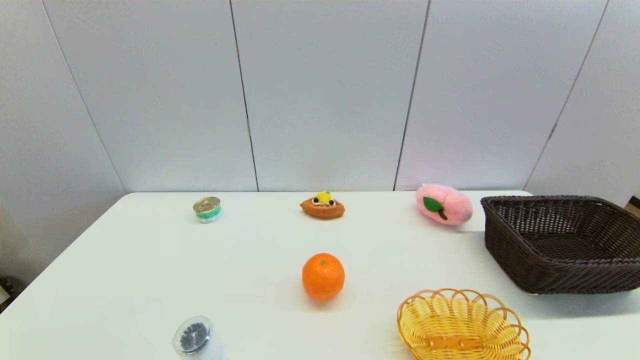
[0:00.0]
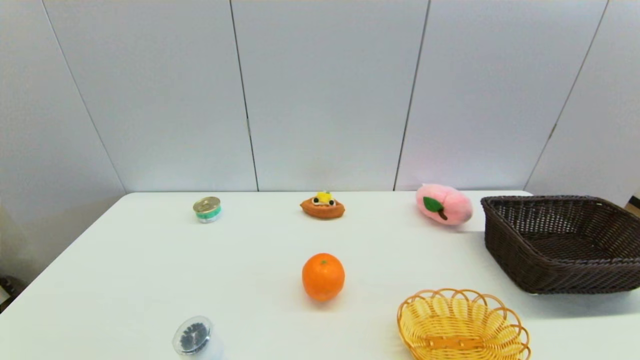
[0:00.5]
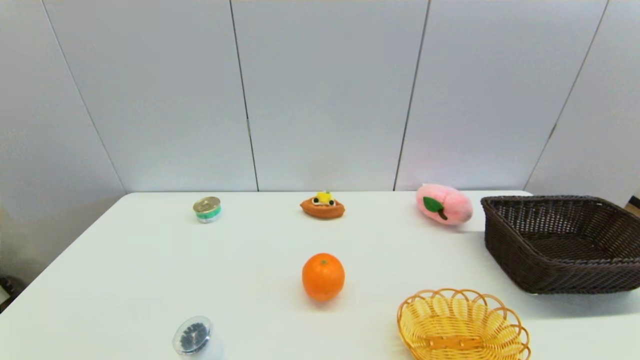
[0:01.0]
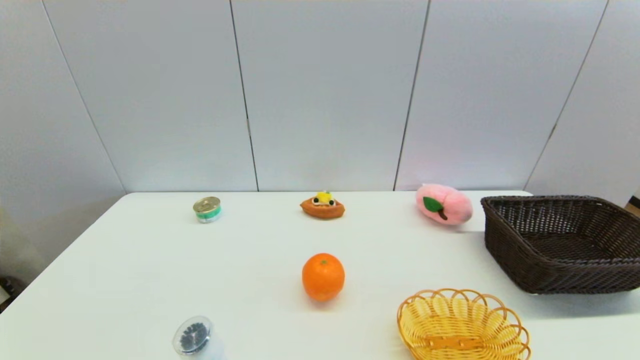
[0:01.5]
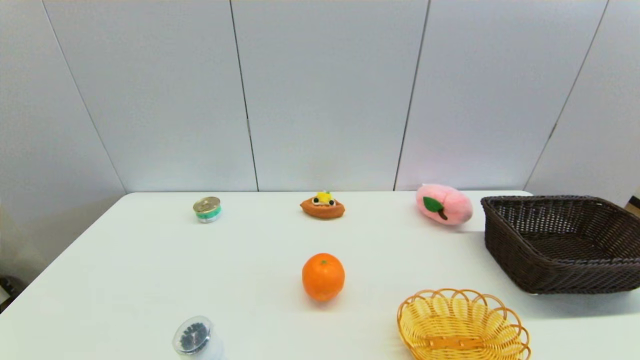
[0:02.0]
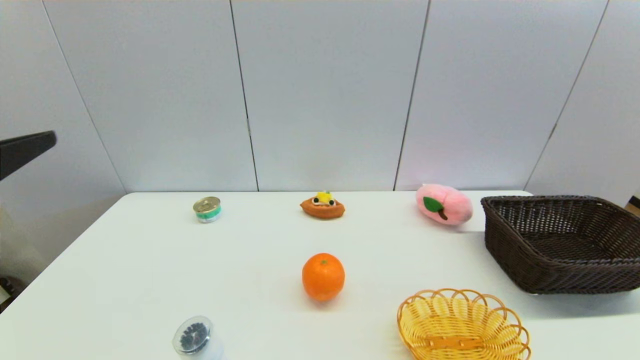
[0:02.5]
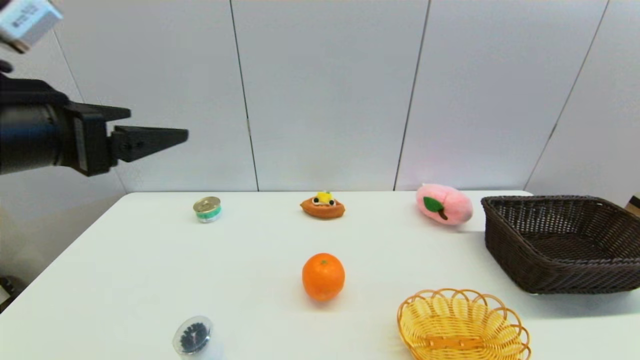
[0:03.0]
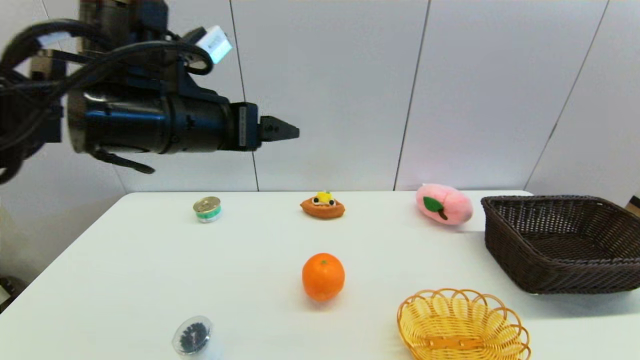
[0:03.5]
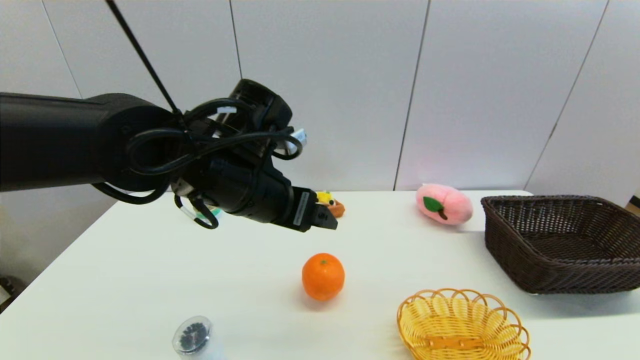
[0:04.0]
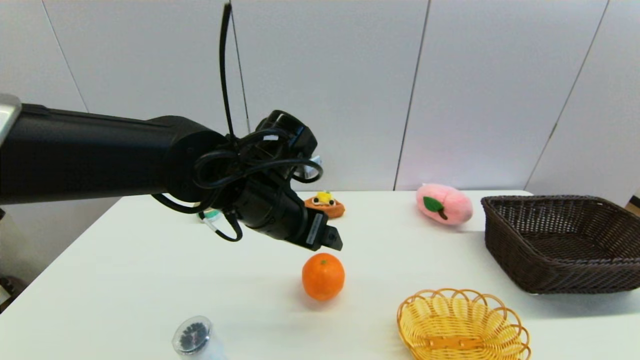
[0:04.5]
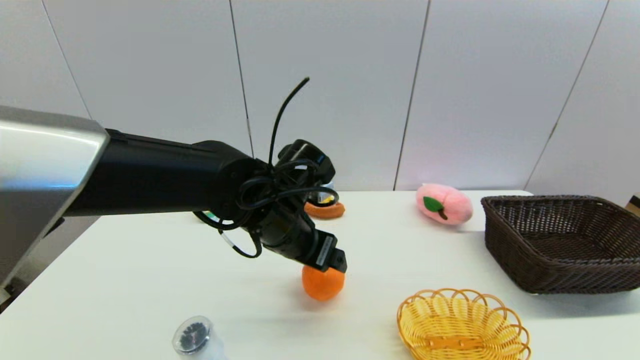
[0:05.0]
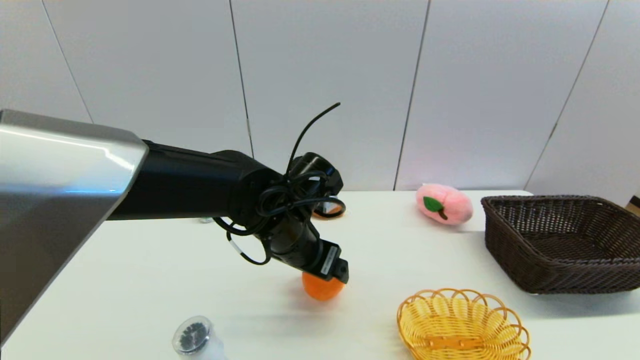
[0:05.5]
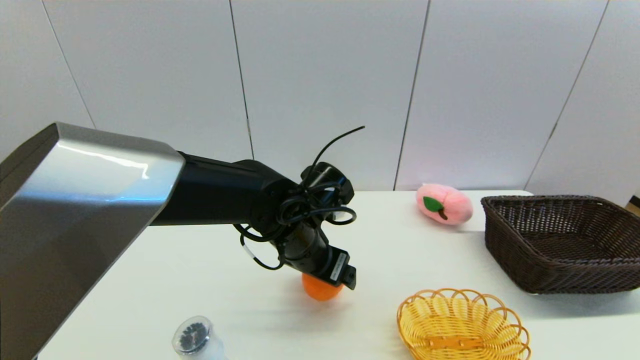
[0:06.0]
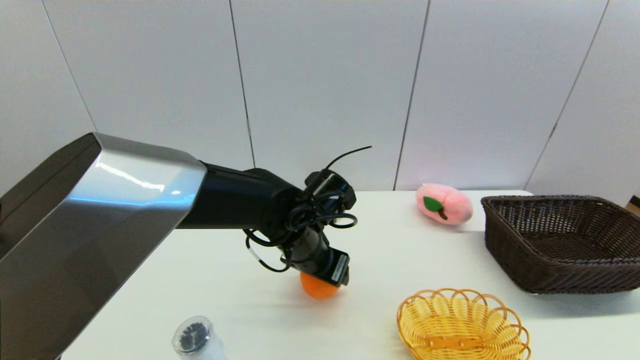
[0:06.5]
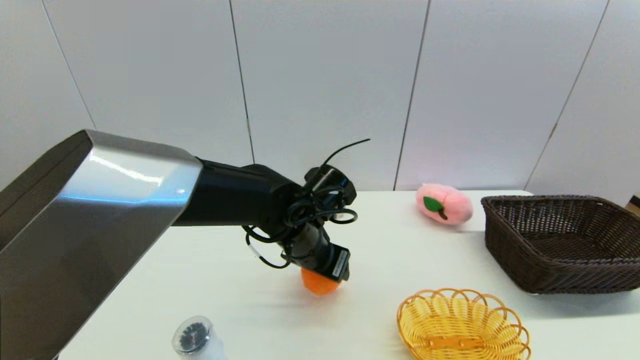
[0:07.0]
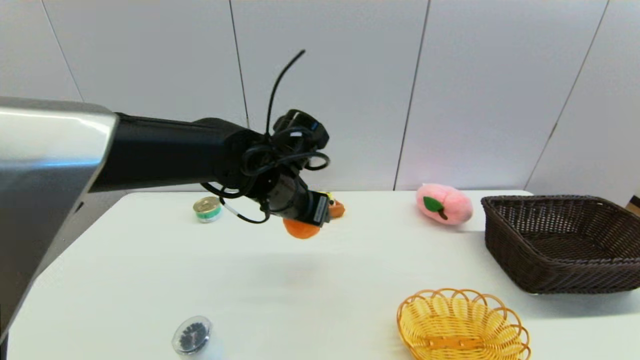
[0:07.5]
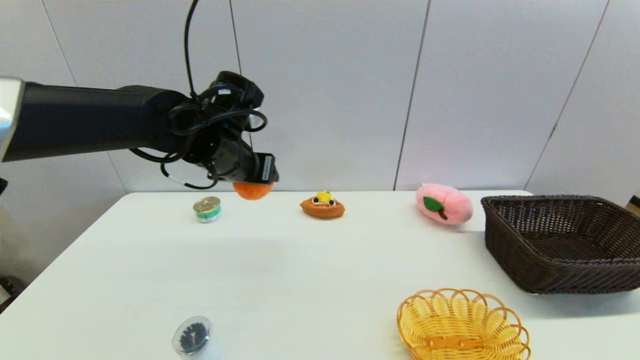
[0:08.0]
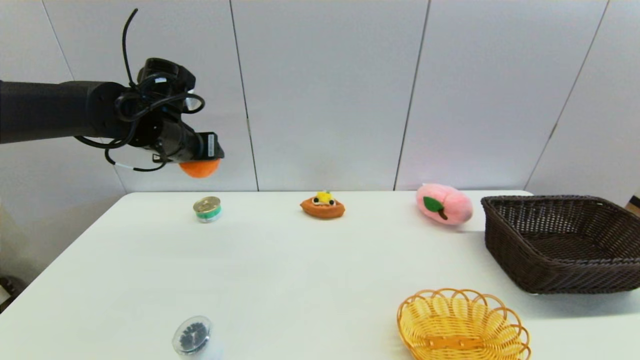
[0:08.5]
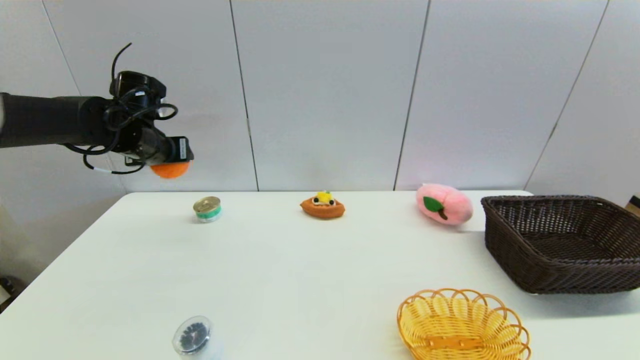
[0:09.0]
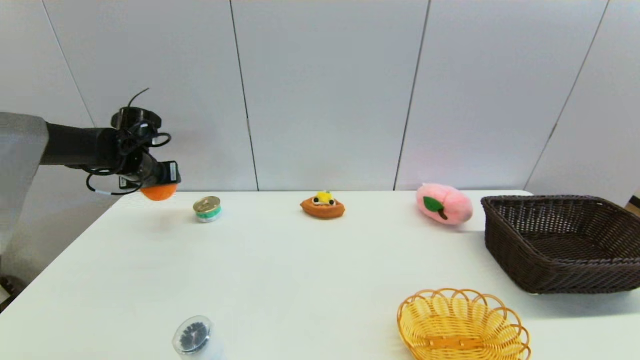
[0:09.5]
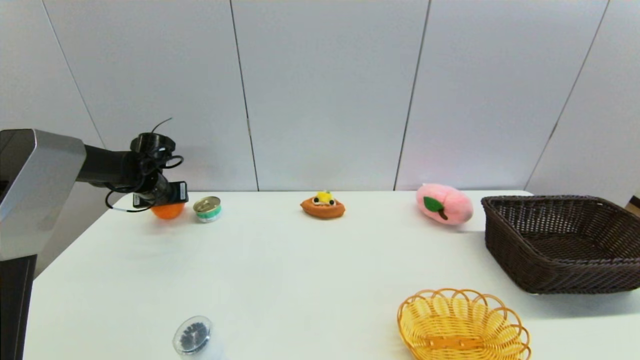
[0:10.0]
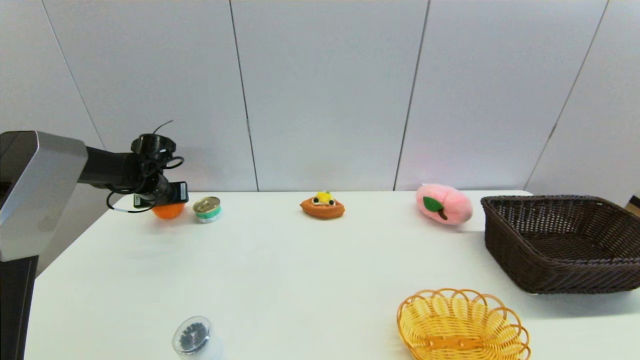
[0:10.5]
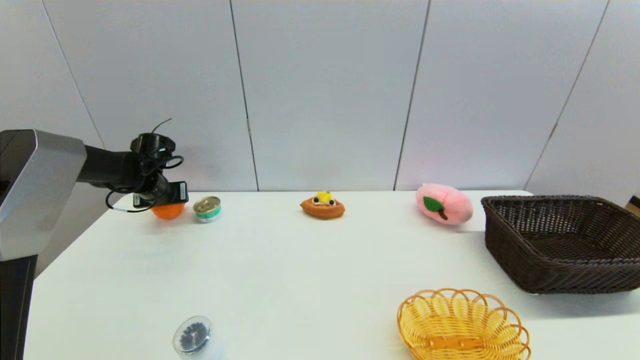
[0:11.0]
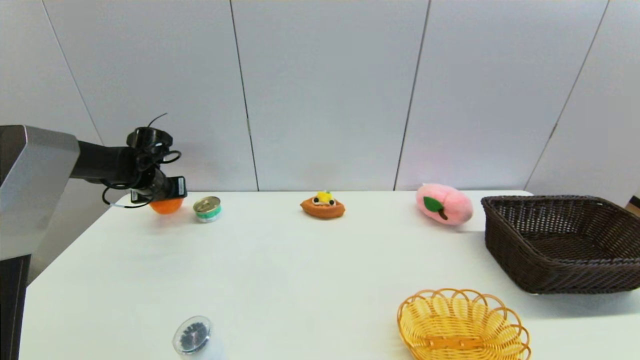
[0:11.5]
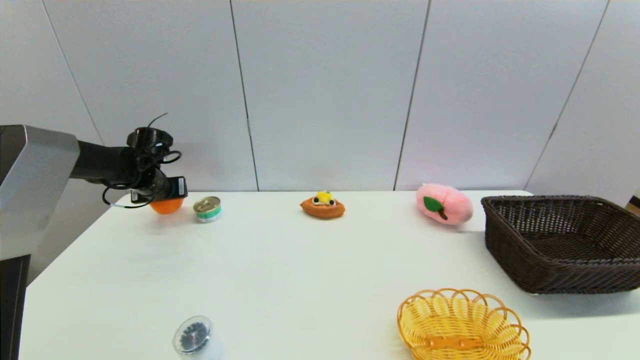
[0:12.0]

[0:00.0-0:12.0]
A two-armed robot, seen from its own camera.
Step, 0:02.5 to 0:06.5: Grasp the orange with left gripper.
0:02.0 to 0:04.0: The left gripper shifts about 35 cm forward and to the right.
0:04.0 to 0:06.0: The left gripper goes some 10 cm downward and to the right.
0:06.0 to 0:08.0: The left gripper moves to the left, upward and forward, roughly 15 cm, and closes up.
0:08.0 to 0:10.0: The left gripper goes roughly 25 cm to the left, downward and forward.
0:10.0 to 0:12.0: Both grippers stay put.

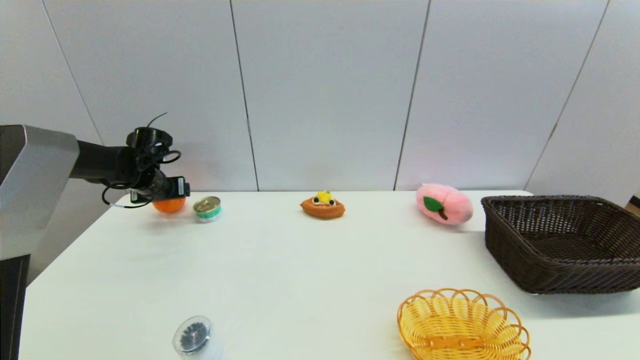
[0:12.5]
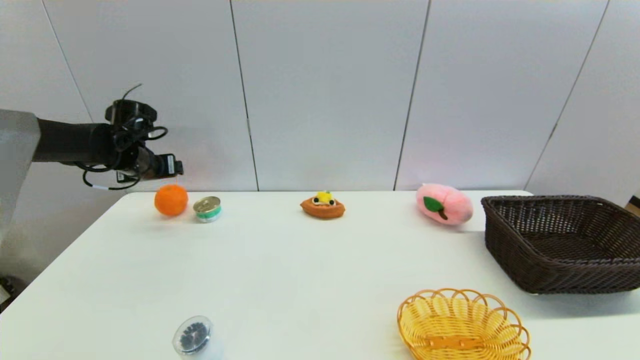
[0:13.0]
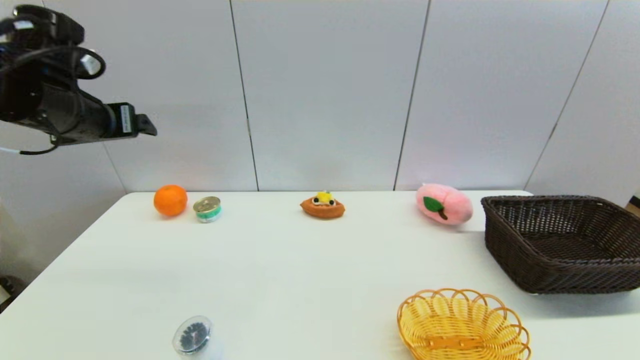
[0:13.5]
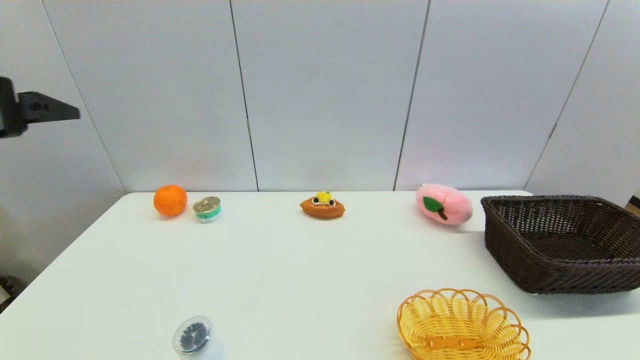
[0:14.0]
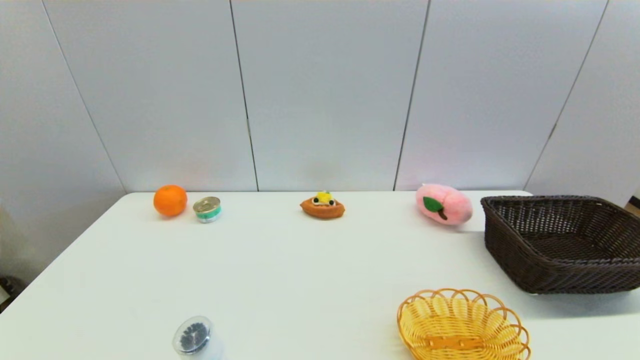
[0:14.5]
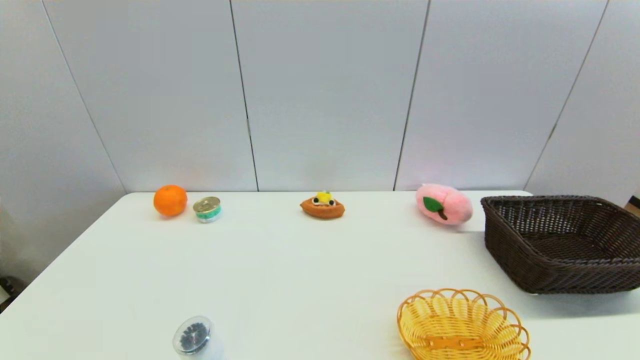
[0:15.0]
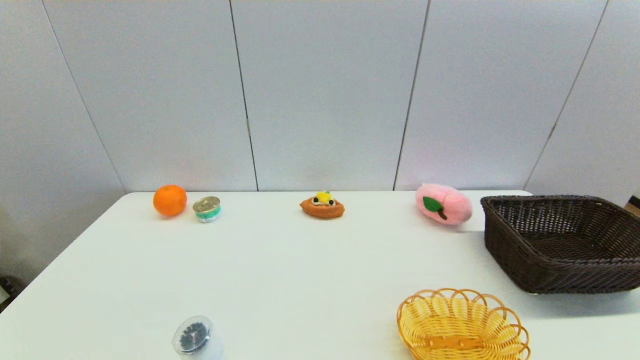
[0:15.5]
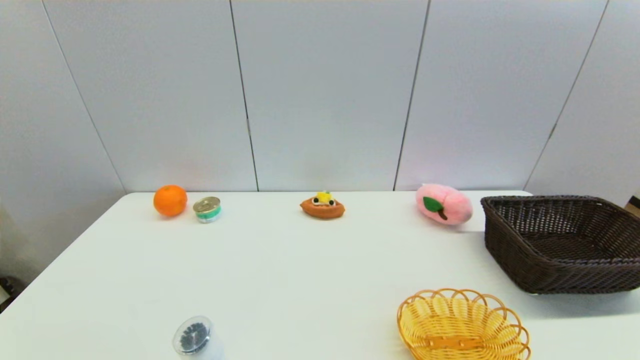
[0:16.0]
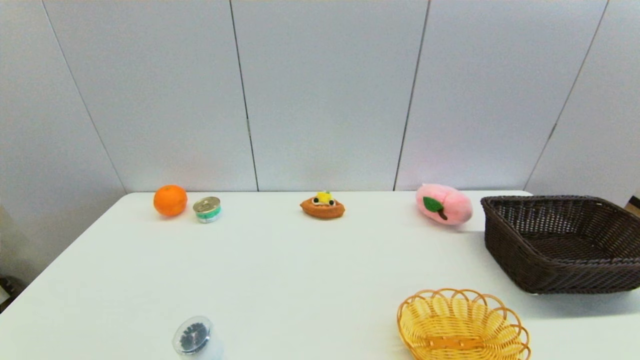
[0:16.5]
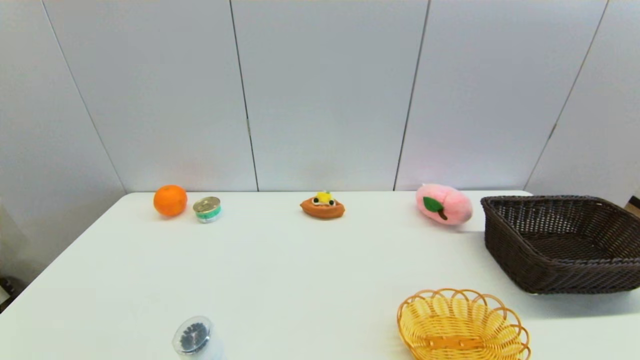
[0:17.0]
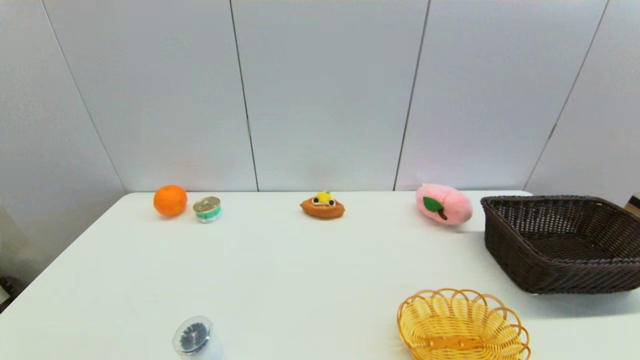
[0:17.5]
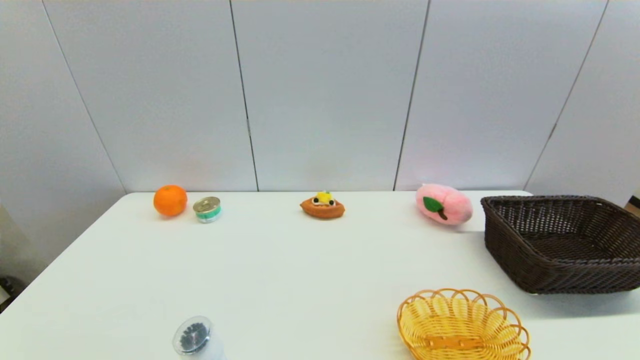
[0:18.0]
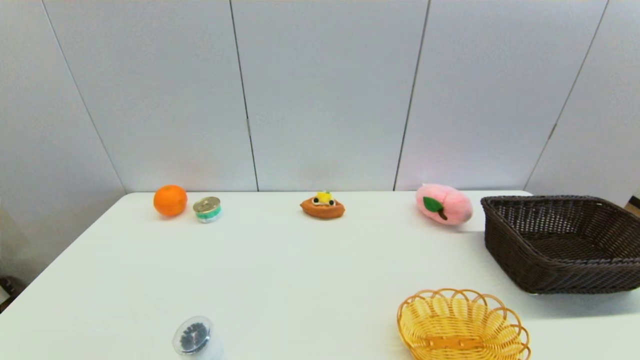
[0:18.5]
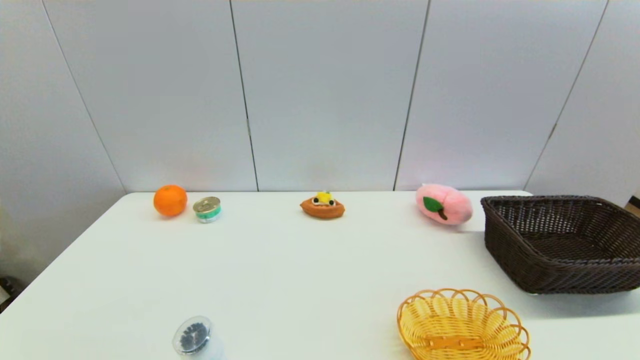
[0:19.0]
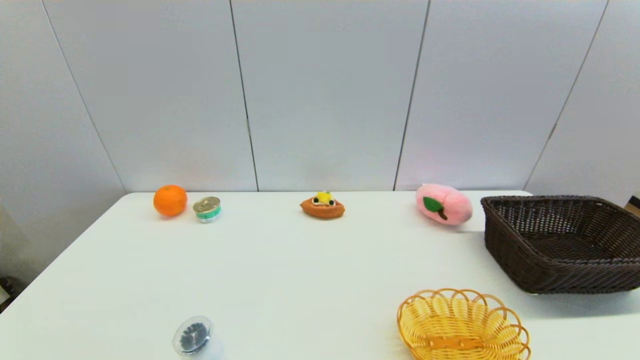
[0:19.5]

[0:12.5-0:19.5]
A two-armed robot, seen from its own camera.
0:12.5 to 0:14.5: The left gripper is displaced backward by about 40 cm.
0:17.5 to 0:19.5: Both grippers stay put.

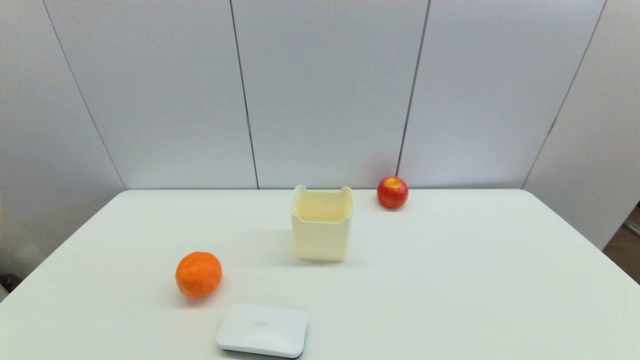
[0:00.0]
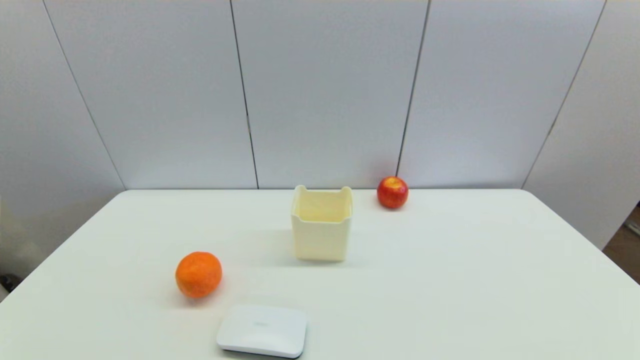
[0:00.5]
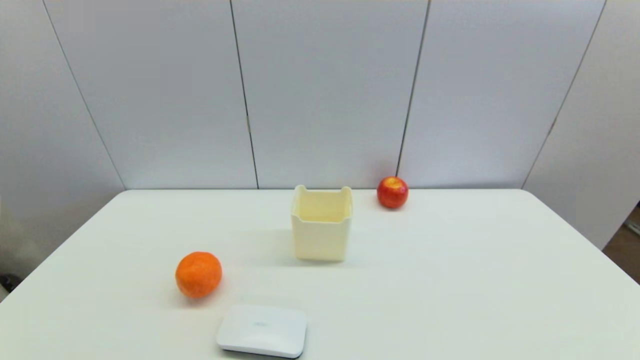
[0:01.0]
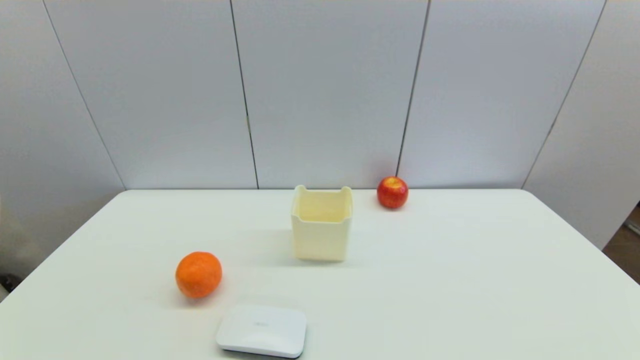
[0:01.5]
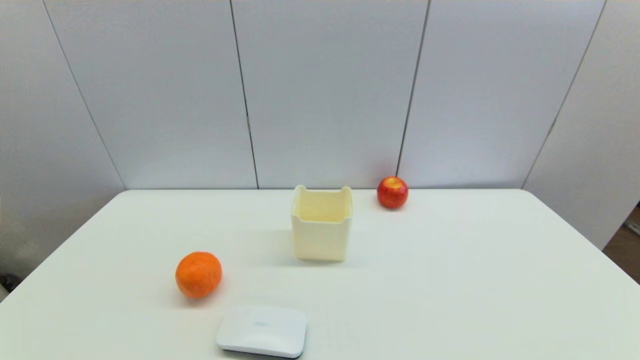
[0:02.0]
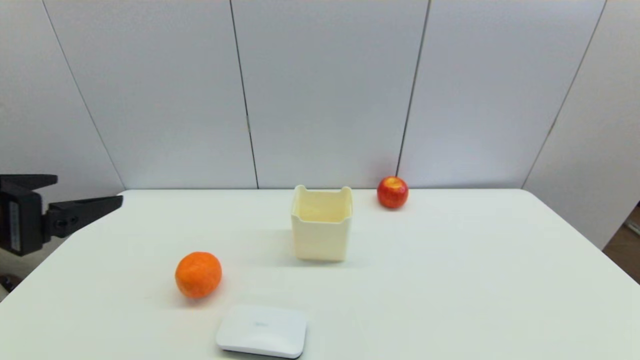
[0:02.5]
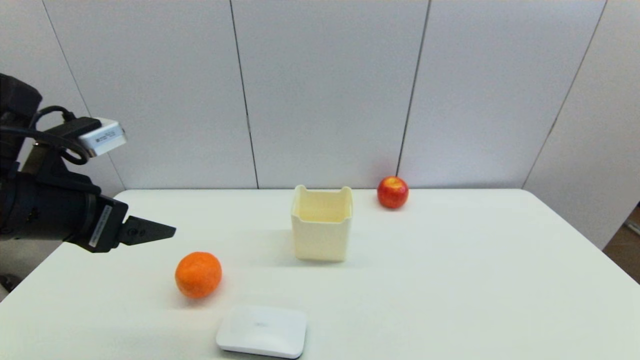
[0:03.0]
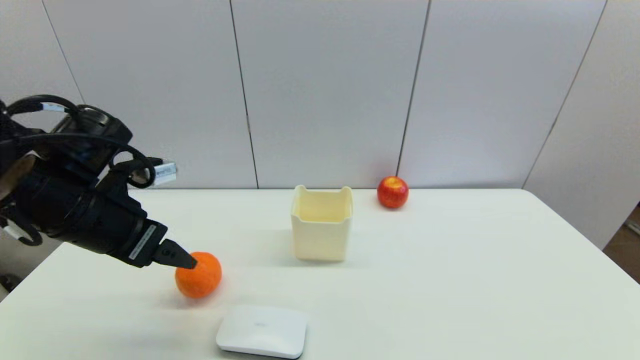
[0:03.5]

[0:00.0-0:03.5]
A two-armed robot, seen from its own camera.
0:02.0 to 0:03.5: The left gripper is displaced forward by roughly 25 cm.
